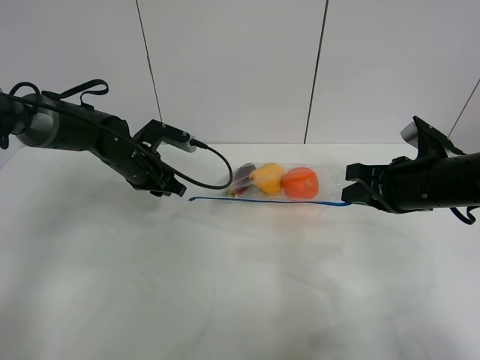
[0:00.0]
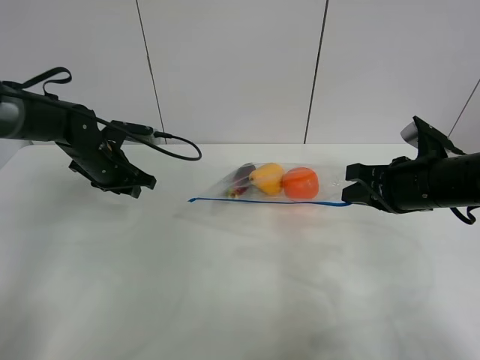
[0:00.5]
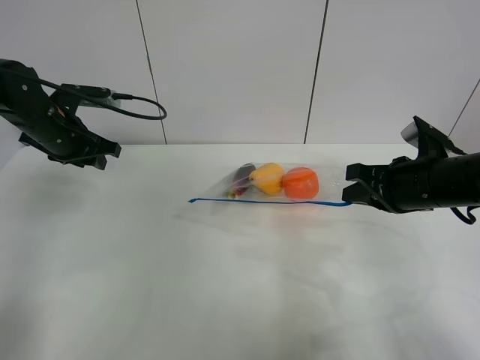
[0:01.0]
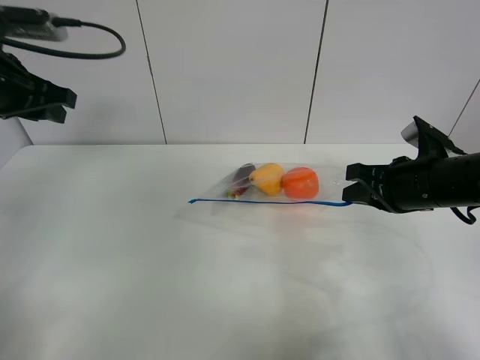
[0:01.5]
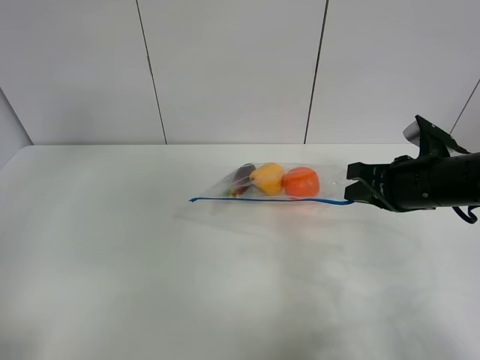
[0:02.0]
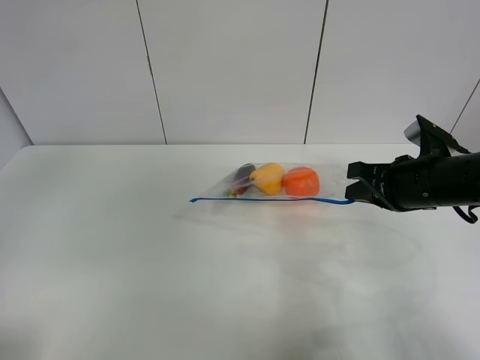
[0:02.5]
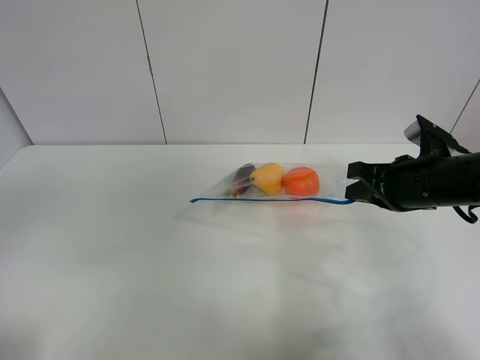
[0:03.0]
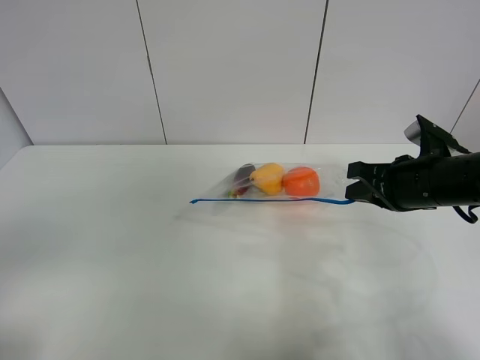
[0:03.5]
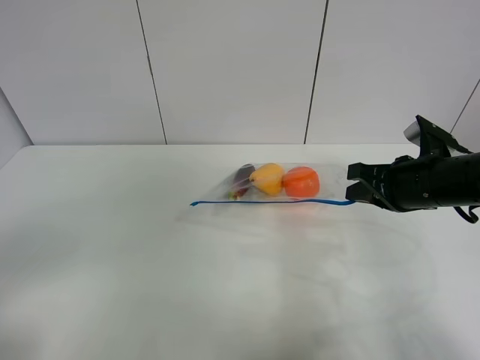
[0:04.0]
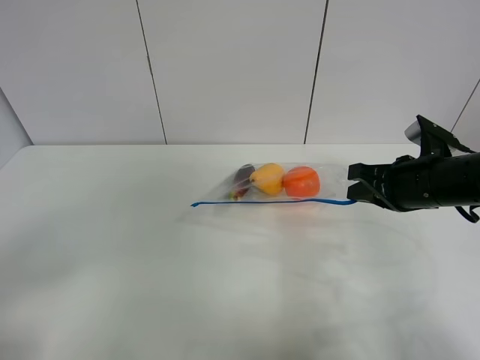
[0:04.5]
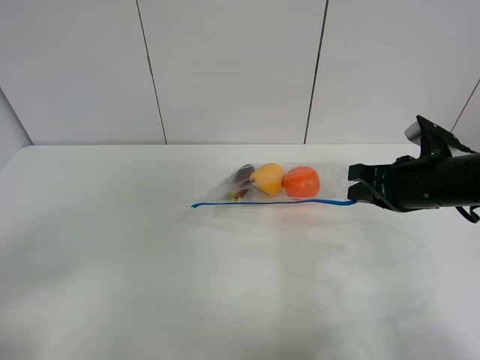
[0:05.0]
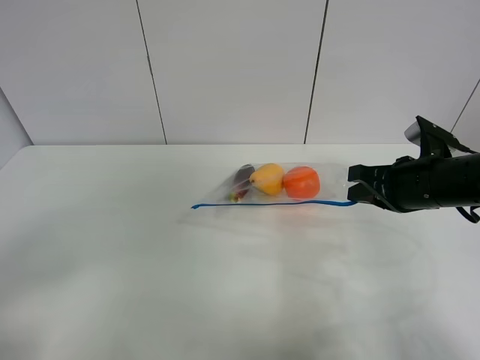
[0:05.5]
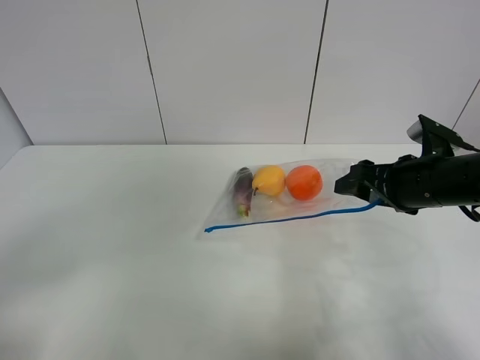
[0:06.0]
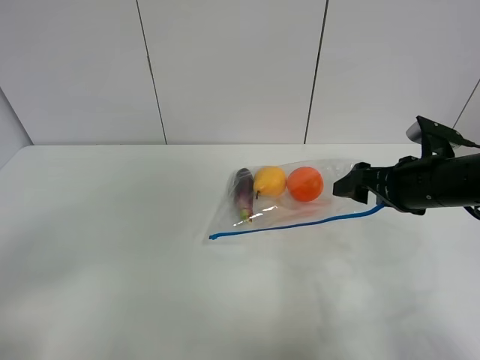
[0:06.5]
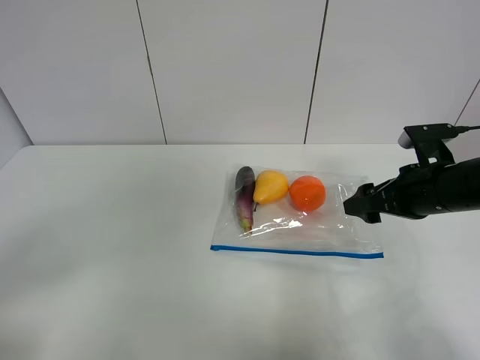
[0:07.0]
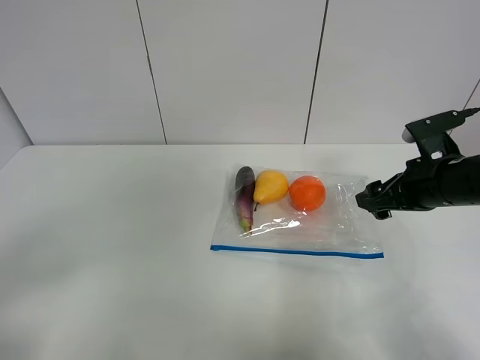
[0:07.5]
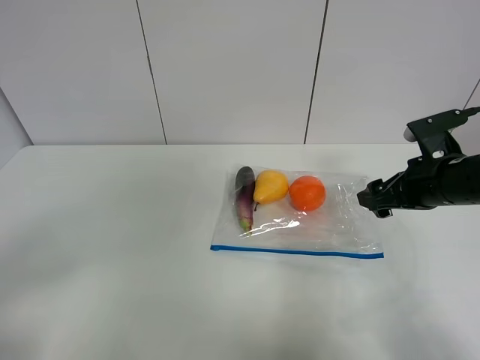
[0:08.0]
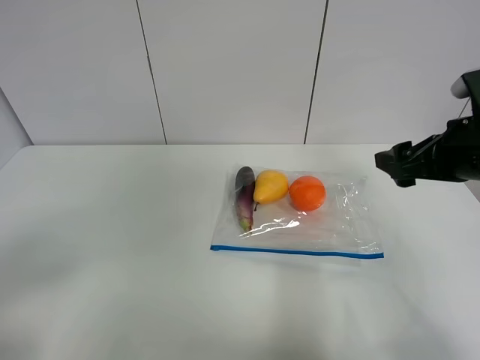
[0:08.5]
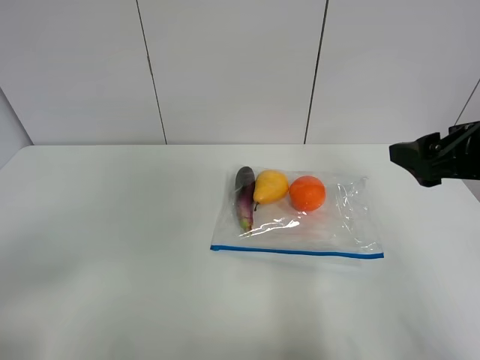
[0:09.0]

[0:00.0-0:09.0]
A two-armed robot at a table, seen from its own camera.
0:00.0 to 0:02.0: The left gripper travels upward, backward and to the left by approximately 35 cm.
0:02.0 to 0:04.5: The left gripper moves backward and downward, approximately 25 cm, and opens its fingers.
0:04.5 to 0:07.0: The right gripper opens up.
0:07.0 to 0:09.0: The right gripper moves upward and backward, roughly 10 cm.

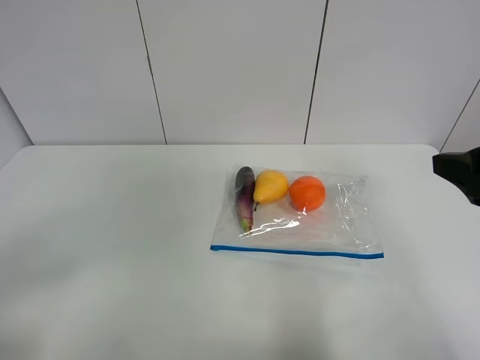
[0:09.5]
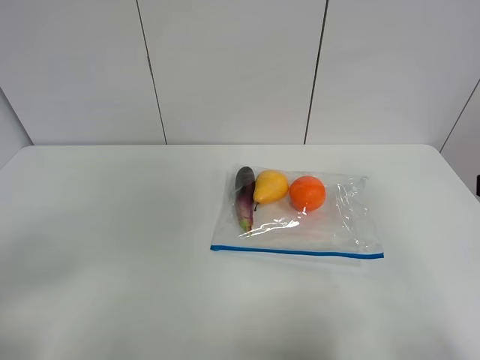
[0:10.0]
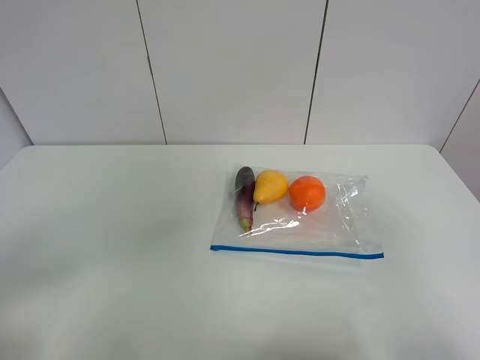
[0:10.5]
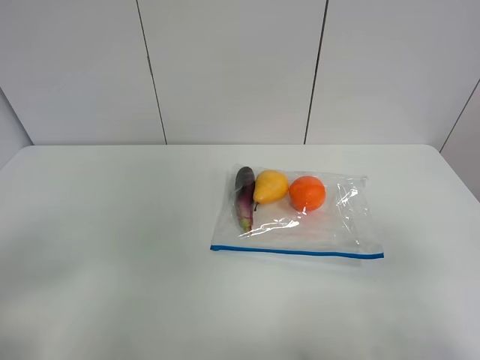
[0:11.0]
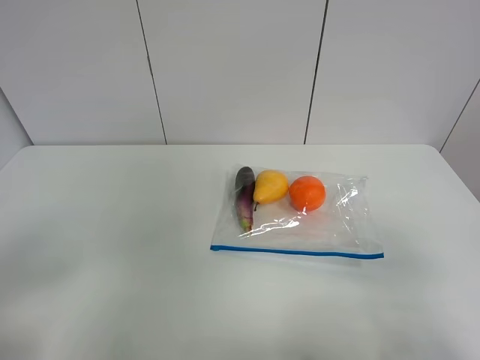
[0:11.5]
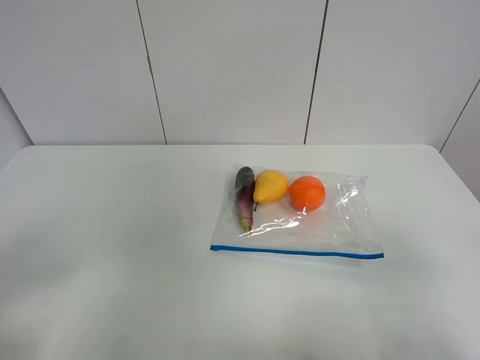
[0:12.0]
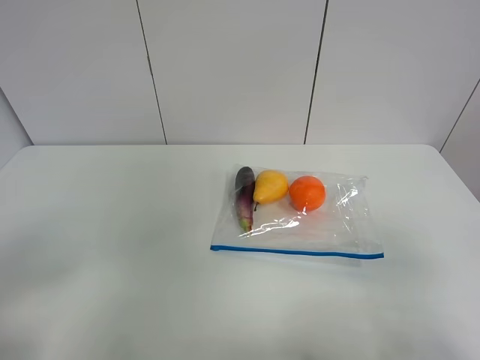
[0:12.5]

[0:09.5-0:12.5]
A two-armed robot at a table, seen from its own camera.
0:09.5 to 0:11.0: The right gripper is displaced backward by about 15 cm.
0:11.0 to 0:12.5: Neither gripper changes place.

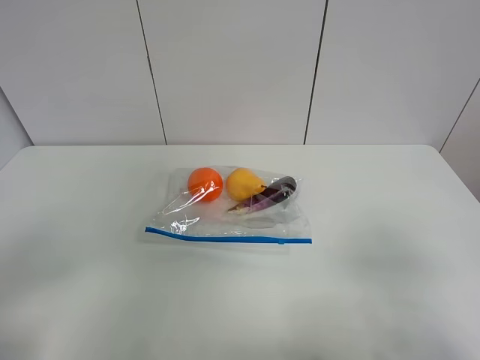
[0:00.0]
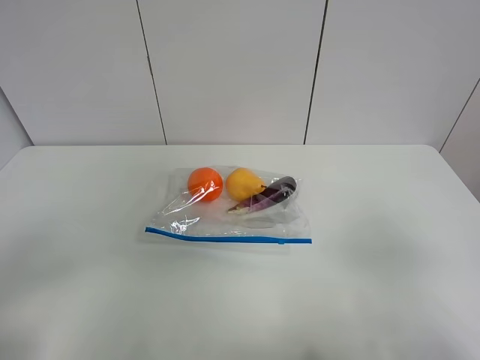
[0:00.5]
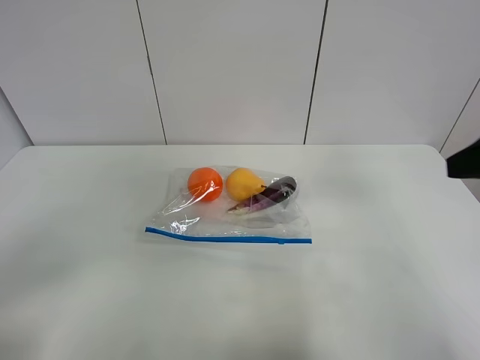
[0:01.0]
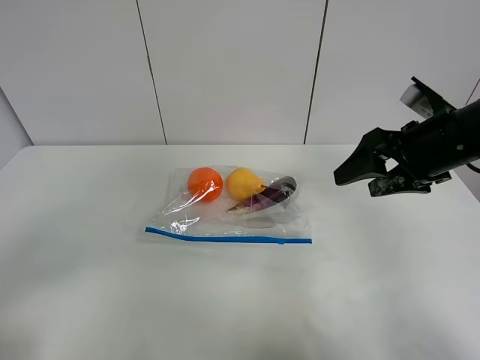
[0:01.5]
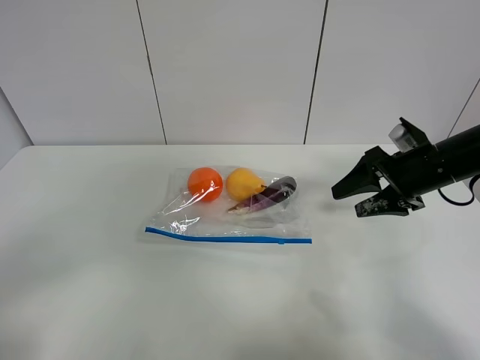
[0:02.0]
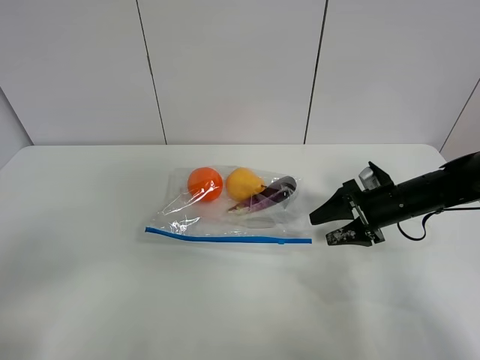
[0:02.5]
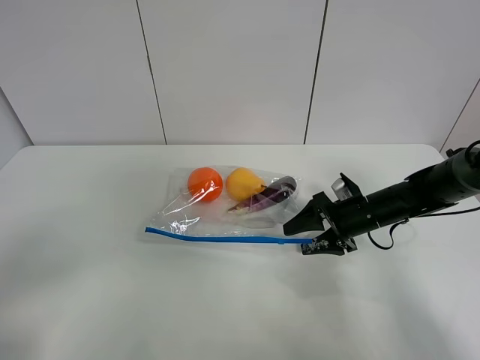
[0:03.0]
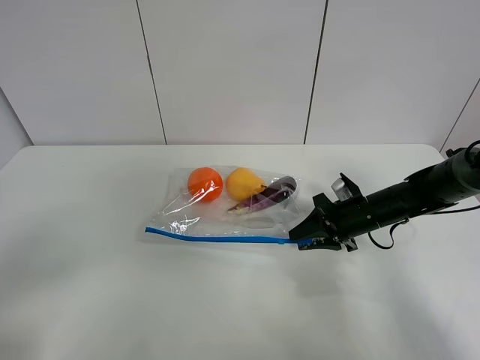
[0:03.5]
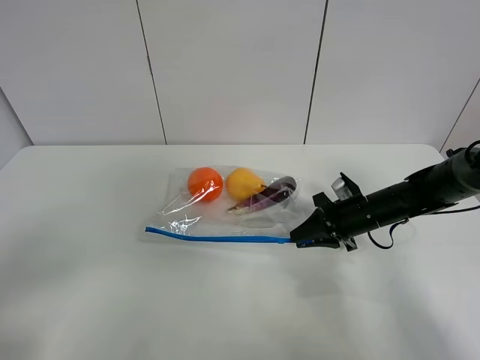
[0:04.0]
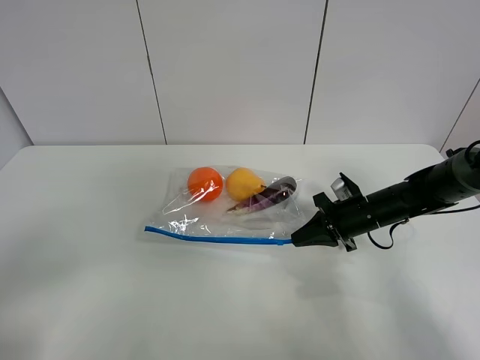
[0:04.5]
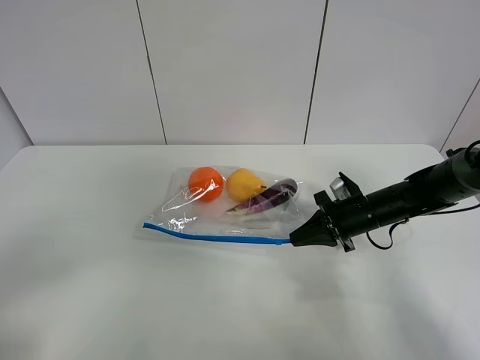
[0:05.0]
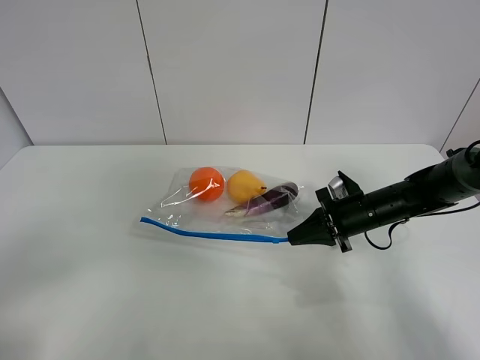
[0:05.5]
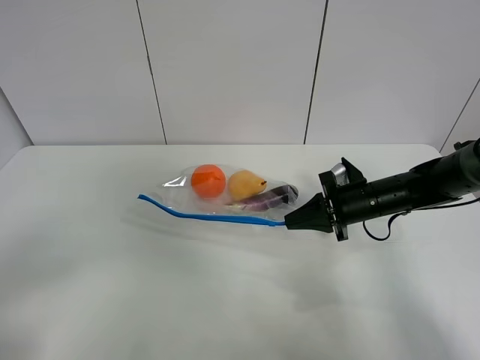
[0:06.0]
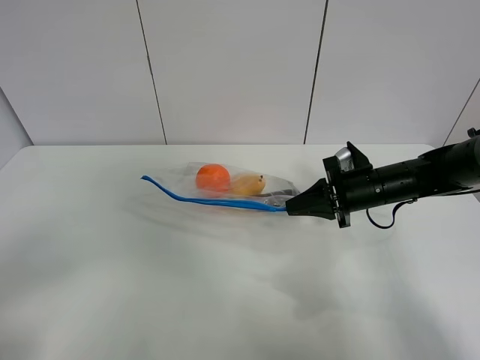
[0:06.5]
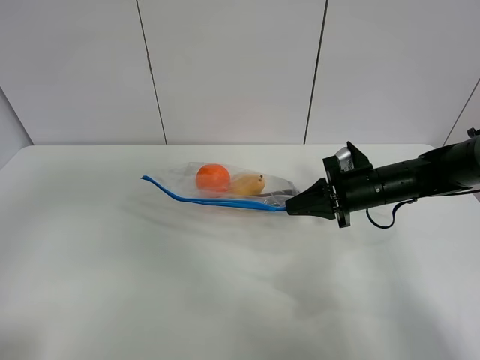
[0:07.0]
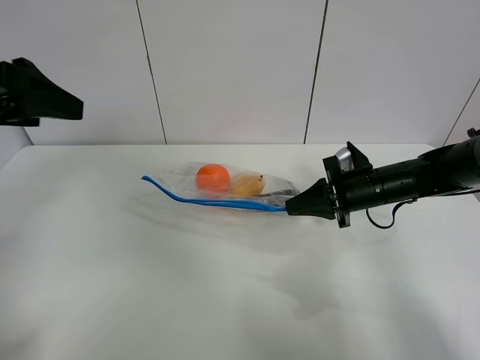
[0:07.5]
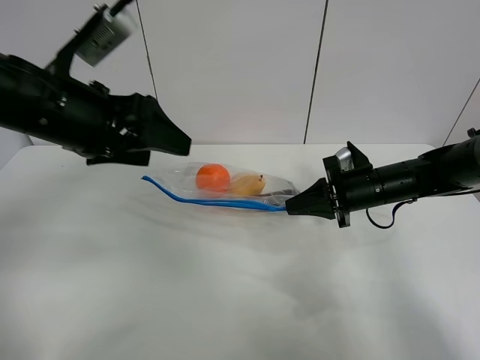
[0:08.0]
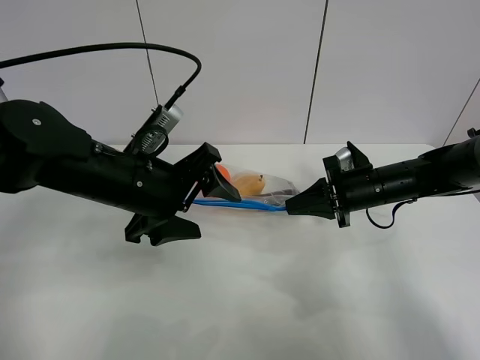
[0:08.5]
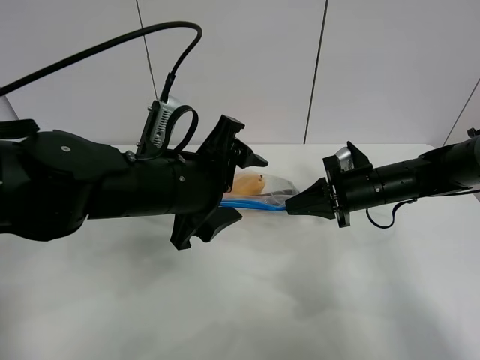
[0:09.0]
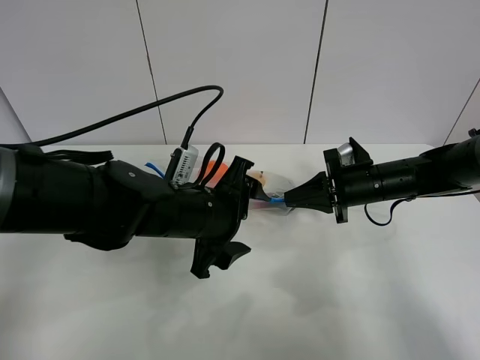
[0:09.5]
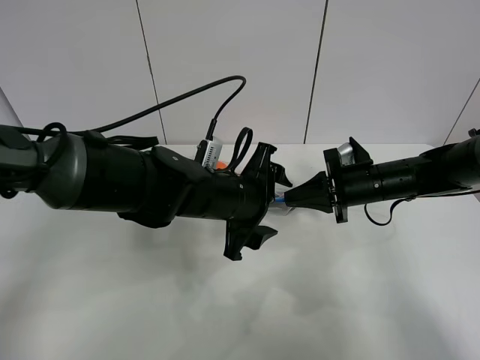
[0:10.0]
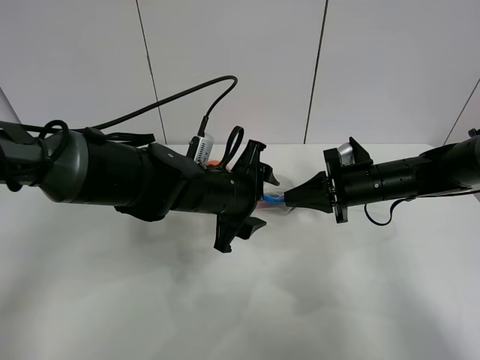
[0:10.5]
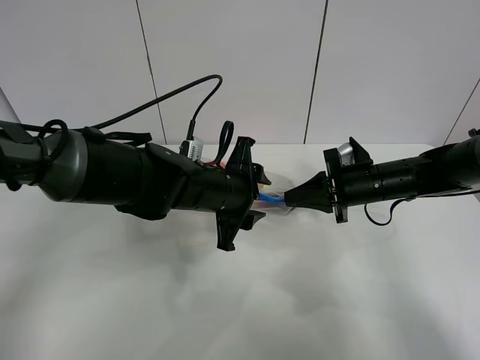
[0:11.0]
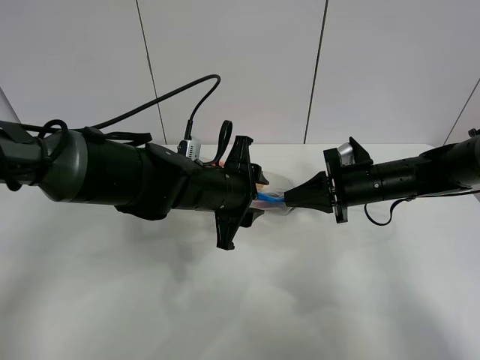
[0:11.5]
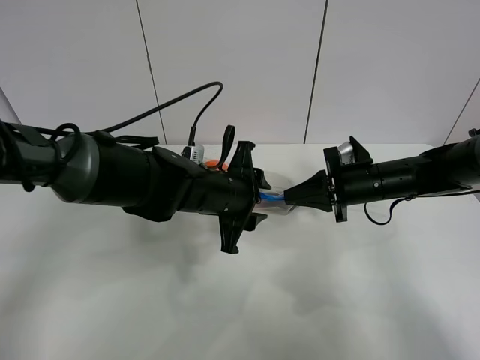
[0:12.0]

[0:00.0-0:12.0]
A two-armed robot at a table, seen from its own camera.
Step, 0:00.0 to 0:04.0: Grasp the fruit bag with right gripper.
Step, 0:04.5 to 0:06.0: Lift the fruit bag with your right gripper.
0:00.0 to 0:02.0: The right gripper goes about 30 cm forward.
0:02.0 to 0:04.0: The right gripper goes approximately 10 cm downward, and closes its fingers.
0:04.0 to 0:06.0: The grippers move only a little.
0:06.0 to 0:08.0: The left gripper moves forward and to the right, some 30 cm.
0:08.0 to 0:10.0: The left gripper goes approximately 20 cm to the right and downward.
0:10.0 to 0:12.0: The grippers stay close to where they were, moving slightly.

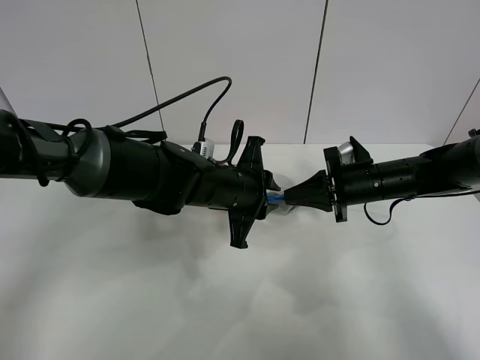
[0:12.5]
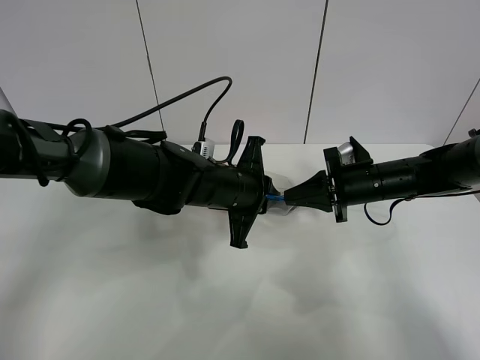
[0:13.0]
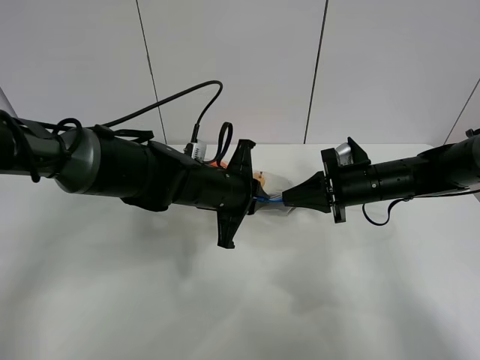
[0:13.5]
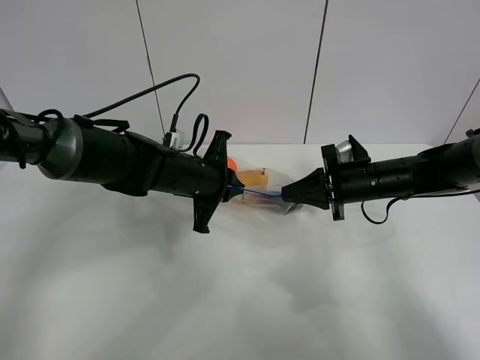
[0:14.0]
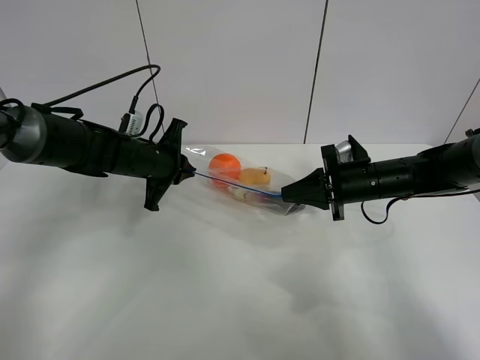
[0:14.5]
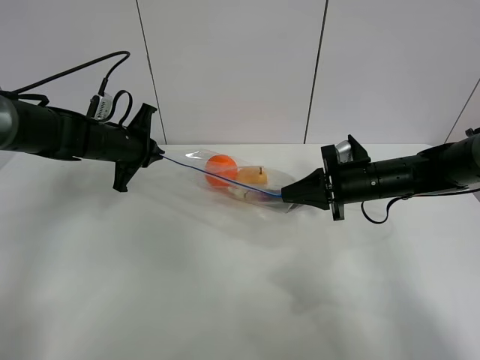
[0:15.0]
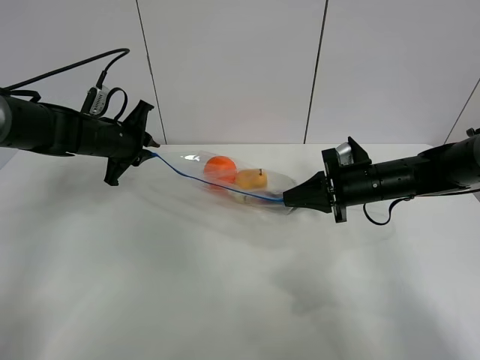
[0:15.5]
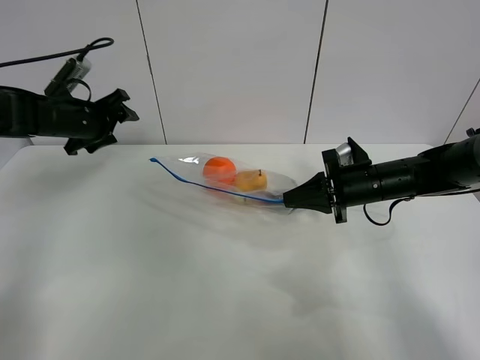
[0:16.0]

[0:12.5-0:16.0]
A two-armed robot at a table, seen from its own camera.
Step, 0:12.5 to 0:15.5: Pull the fruit bag with left gripper.
0:12.5 to 0:14.5: The left gripper moves to the left and forward, roughly 15 cm.
0:14.5 to 0:16.0: The left gripper moves to the left, about 15 cm, and opens up.
